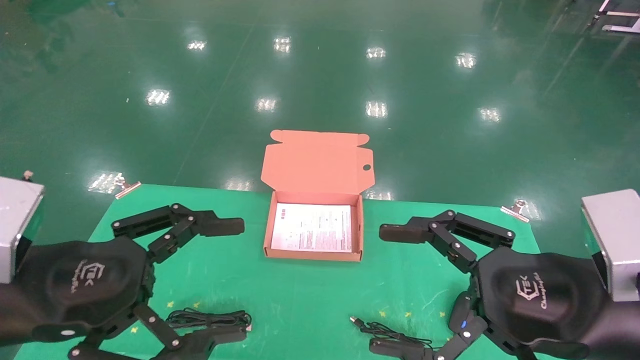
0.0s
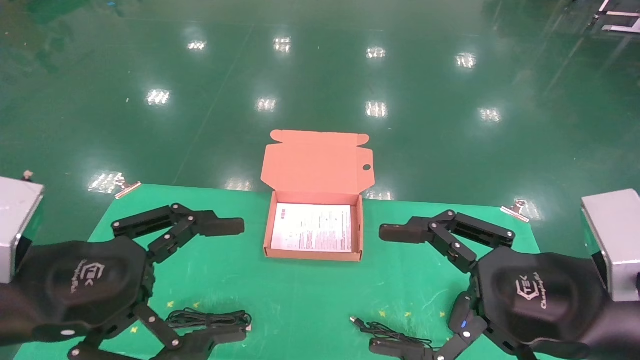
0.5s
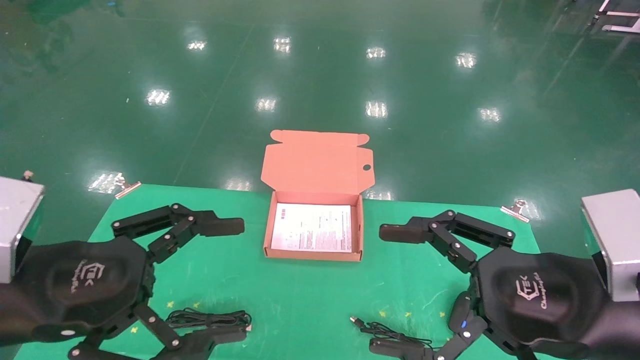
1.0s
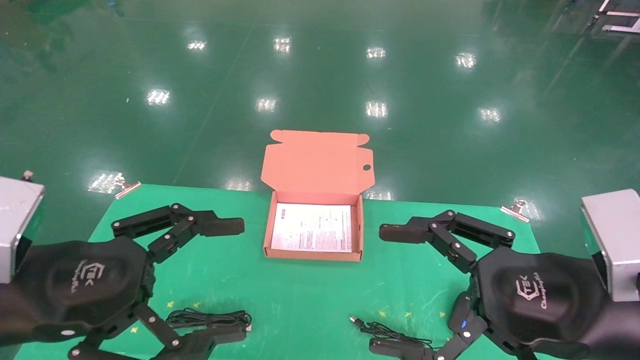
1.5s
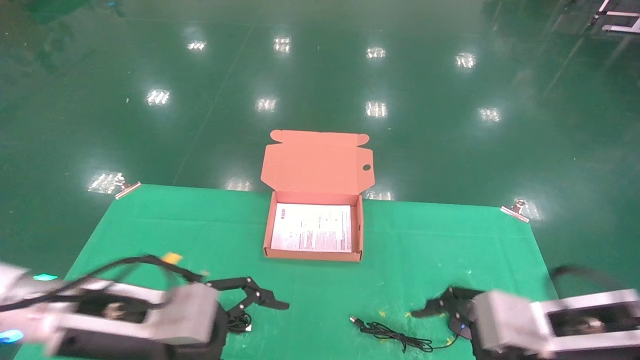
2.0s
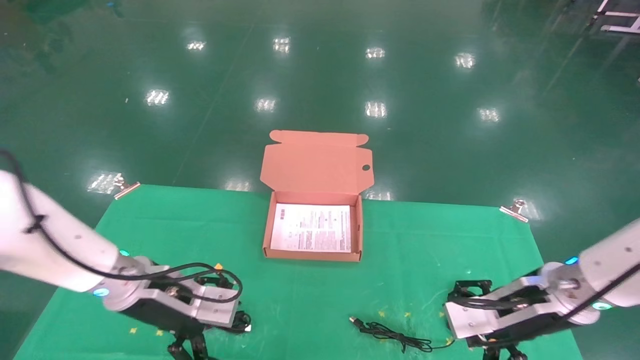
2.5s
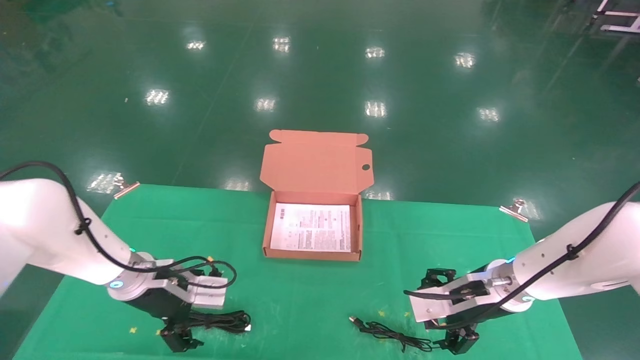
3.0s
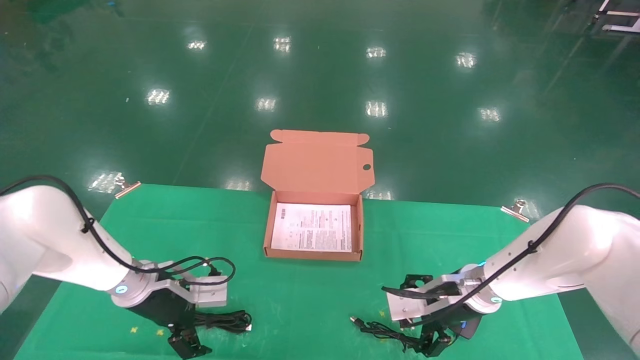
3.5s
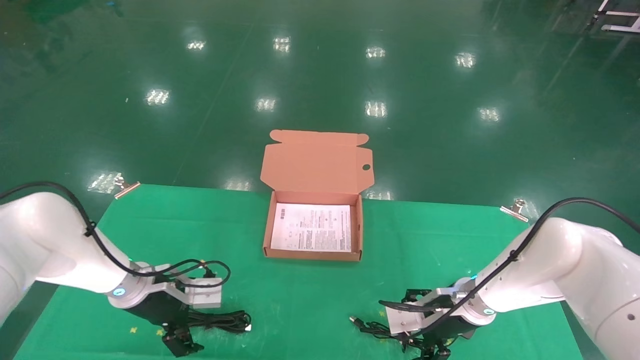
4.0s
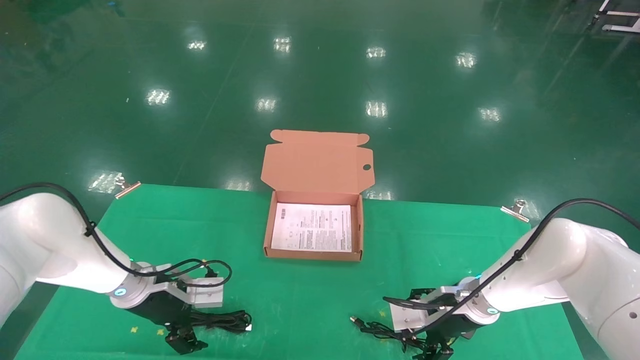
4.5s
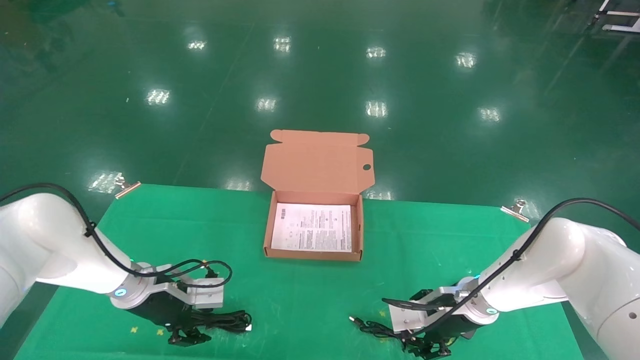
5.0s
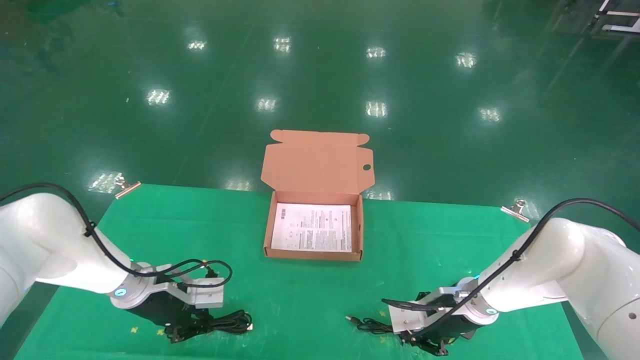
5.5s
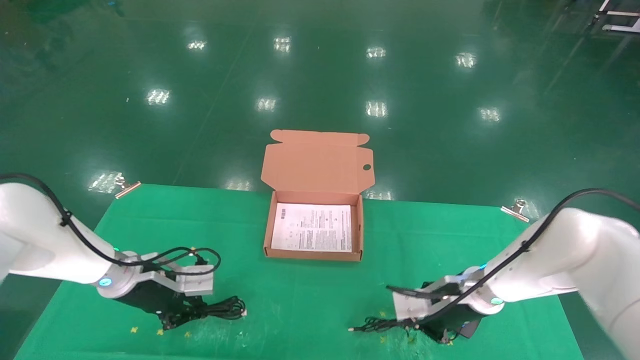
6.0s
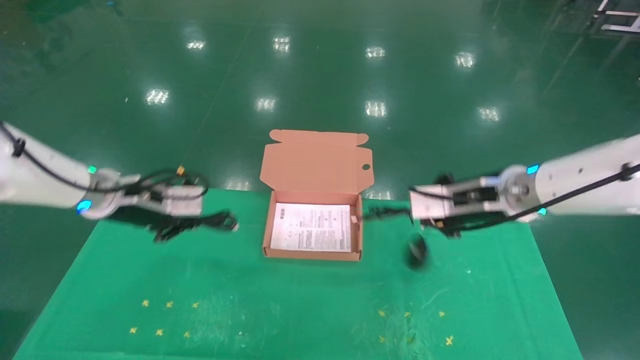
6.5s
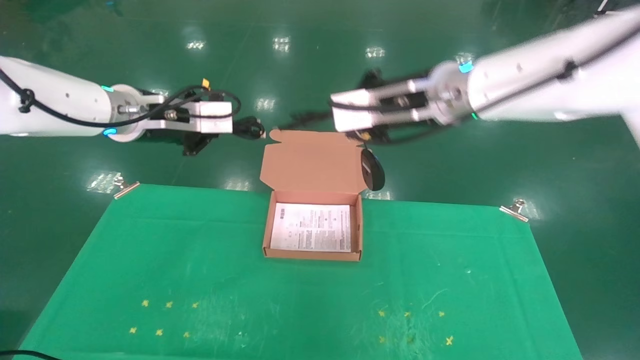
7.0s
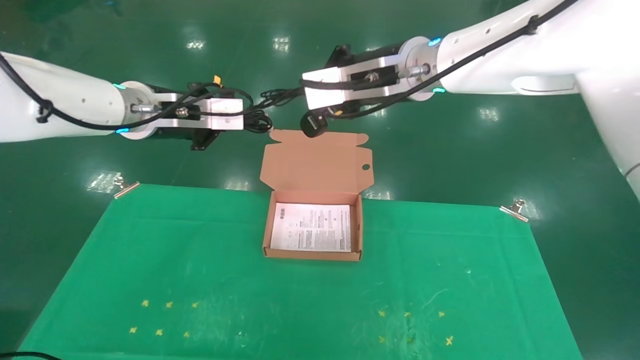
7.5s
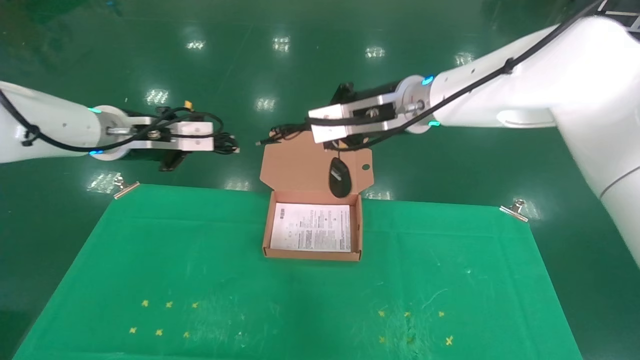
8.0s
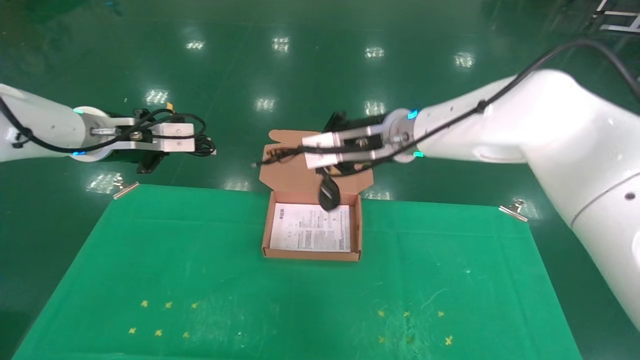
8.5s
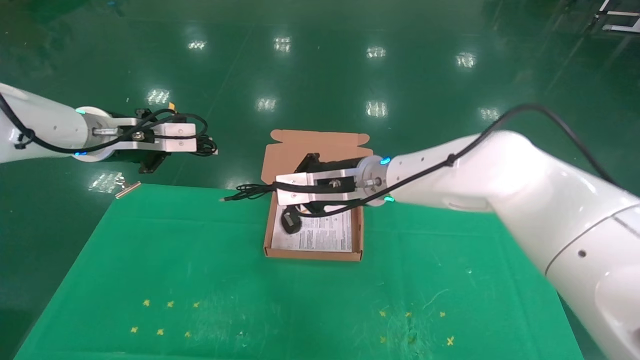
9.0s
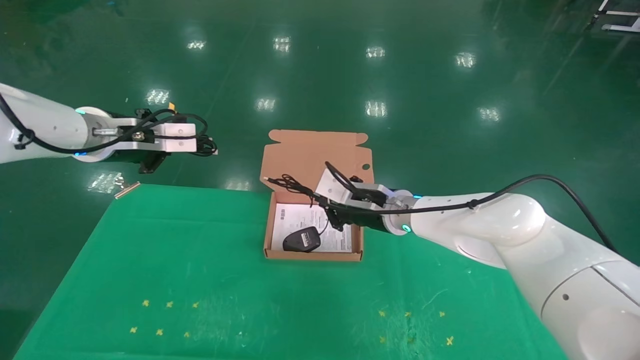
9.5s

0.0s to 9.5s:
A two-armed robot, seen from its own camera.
Task of the whole recording: grasp data cable left put into box grasp mouse right put into box.
Step, 2.0s to 6.5s: Grab and pick up both the mouse and power cord from the accessory packaging area at the same time.
0.0s to 2.0s: The right gripper goes approximately 10 cm downward and forward, while the left gripper heads forward and downward, covering roughly 10 cm.
2.0s to 4.0s: Both grippers move forward and downward, roughly 20 cm.
4.0s to 5.5s: The right gripper closes; the left gripper closes.
5.5s to 7.5s: Both grippers travel together upward, approximately 30 cm.
7.5s to 9.5s: The right gripper goes roughly 20 cm downward; the left gripper goes roughly 5 cm to the left.

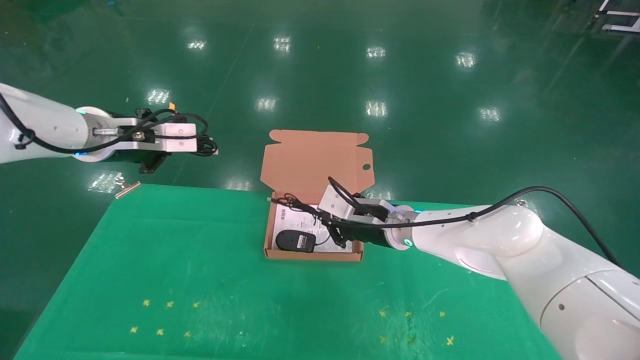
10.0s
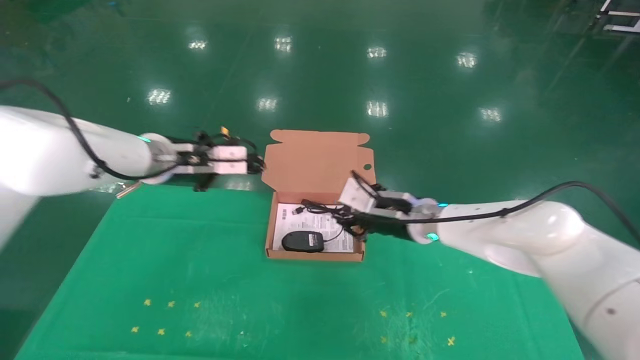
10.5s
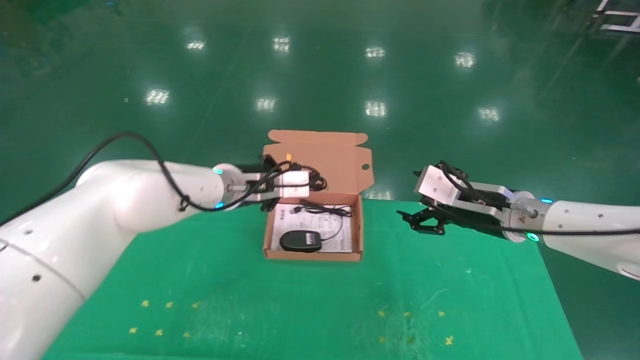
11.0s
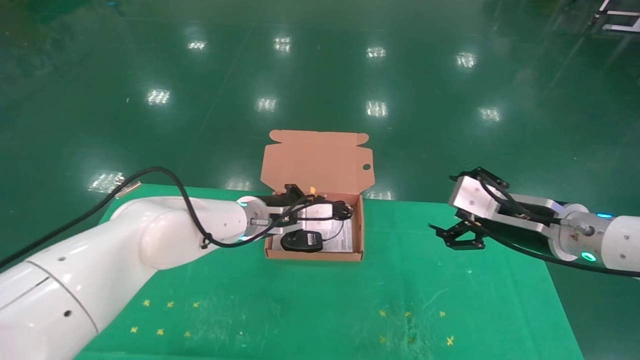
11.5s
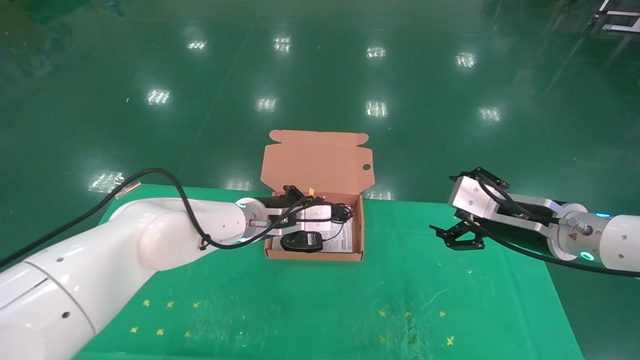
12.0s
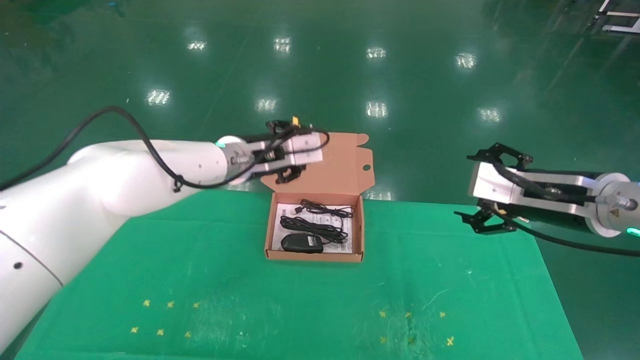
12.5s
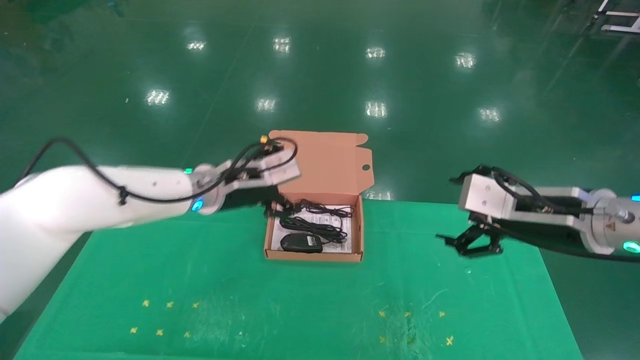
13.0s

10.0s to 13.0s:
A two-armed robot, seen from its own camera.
Task of the whole recording: grasp data cable left put into box grasp mouse right put into box.
Step, 10.0s to 12.0s: Place the mouse and power cord into the box.
10.0s to 11.5s: The left gripper moves to the right and downward, roughly 25 cm, while the right gripper is displaced to the right and backward by approximately 20 cm, and opens.
11.5s to 13.0s: The left gripper goes about 5 cm to the left, and opens its fingers.
